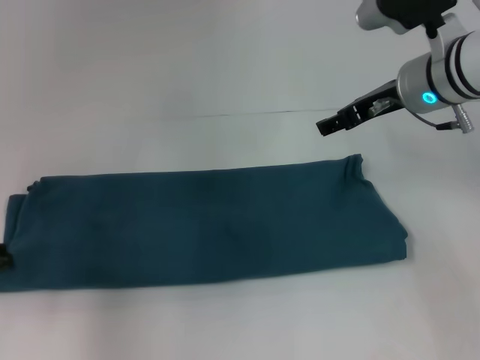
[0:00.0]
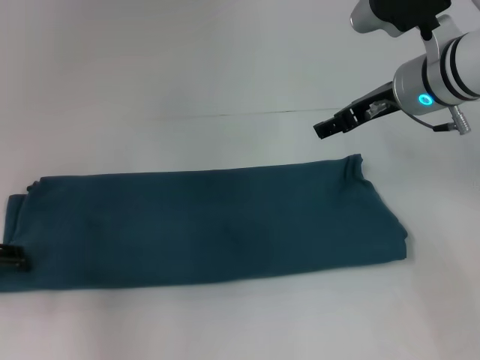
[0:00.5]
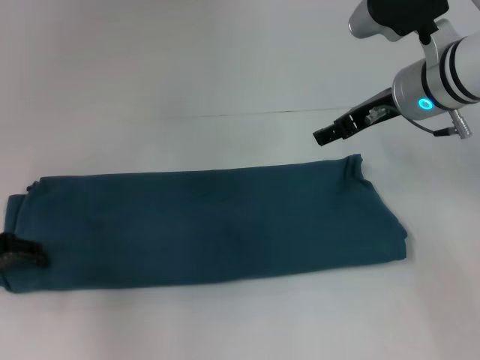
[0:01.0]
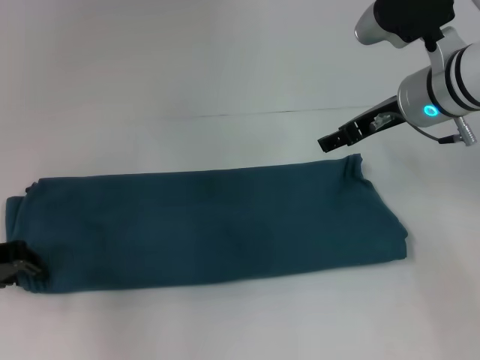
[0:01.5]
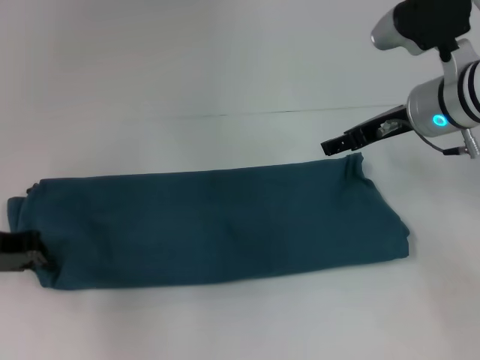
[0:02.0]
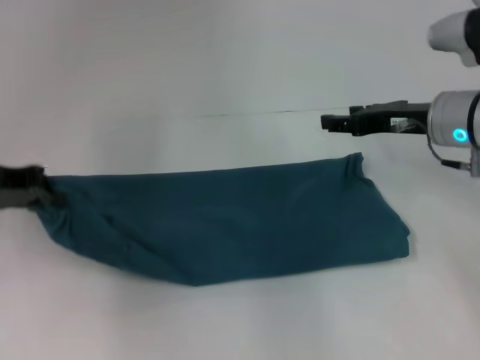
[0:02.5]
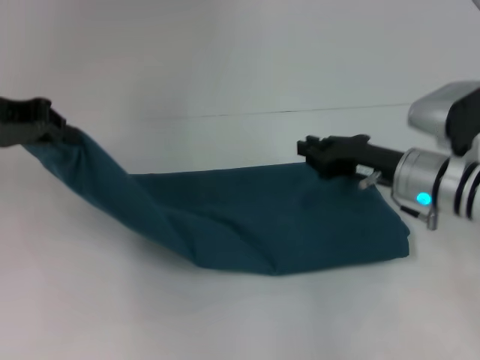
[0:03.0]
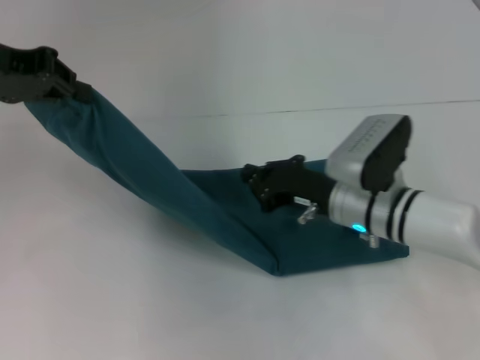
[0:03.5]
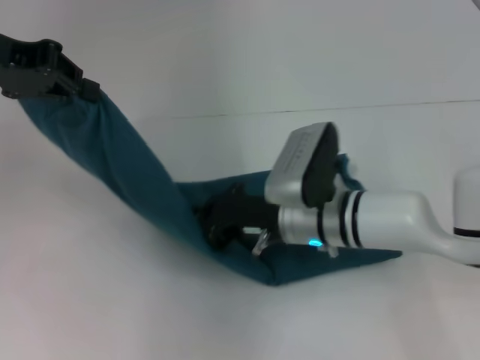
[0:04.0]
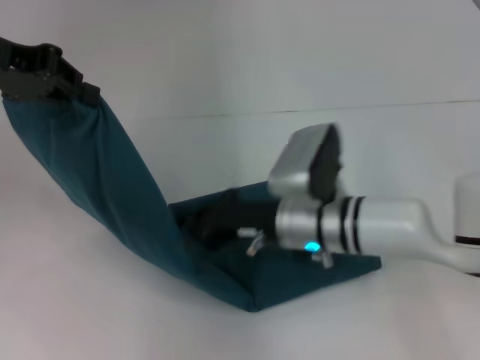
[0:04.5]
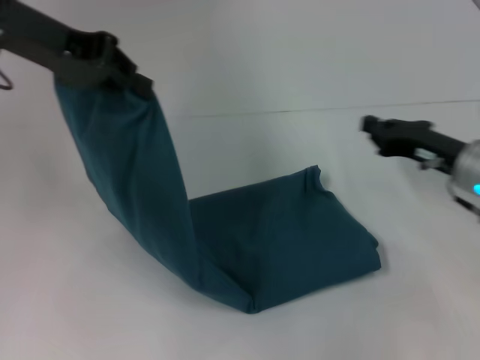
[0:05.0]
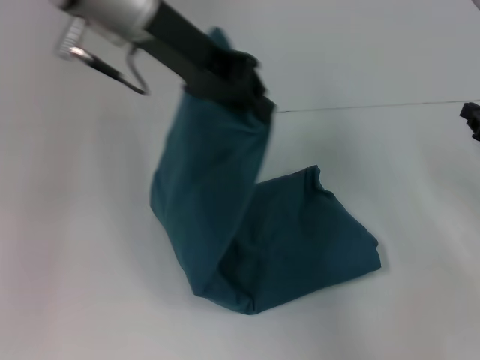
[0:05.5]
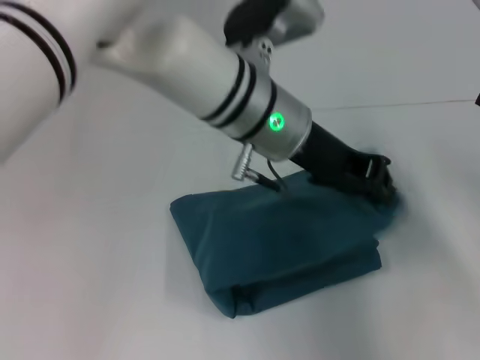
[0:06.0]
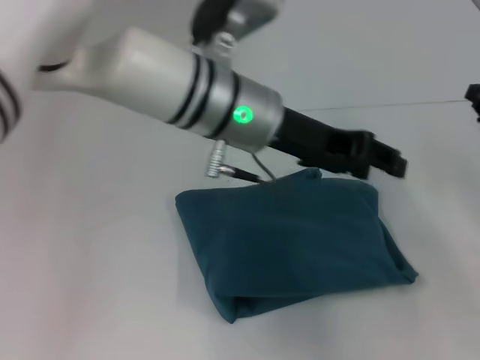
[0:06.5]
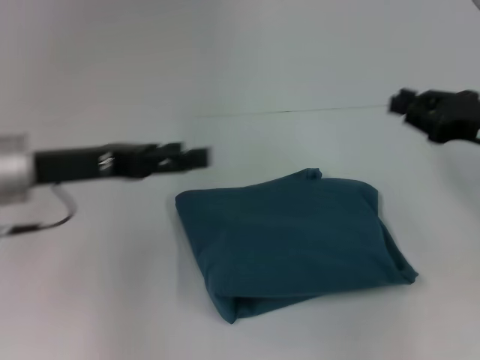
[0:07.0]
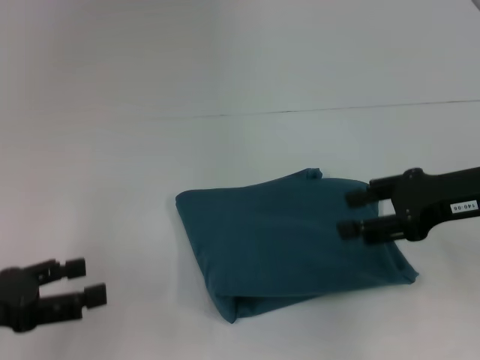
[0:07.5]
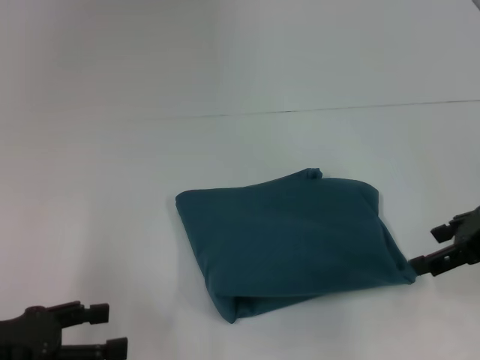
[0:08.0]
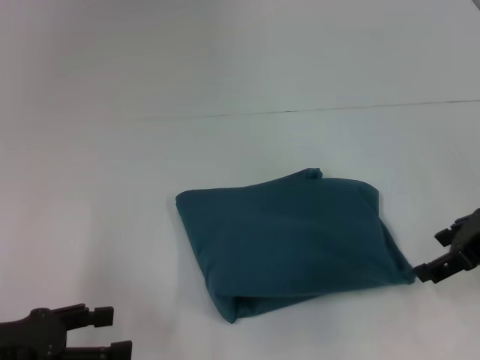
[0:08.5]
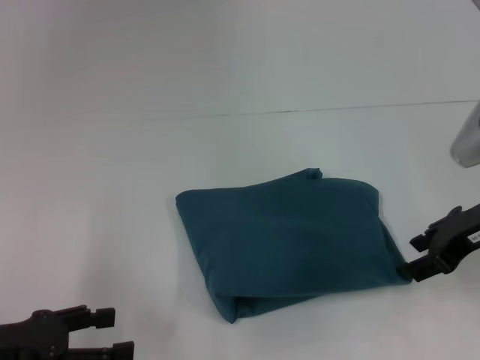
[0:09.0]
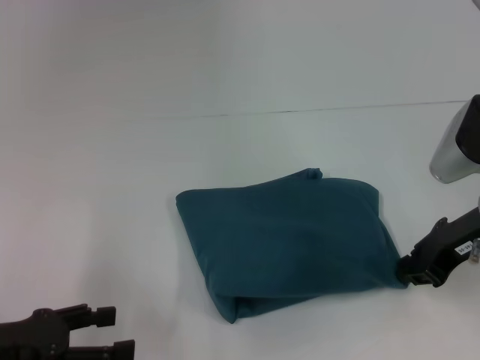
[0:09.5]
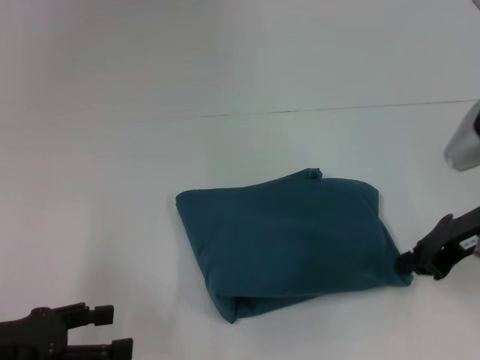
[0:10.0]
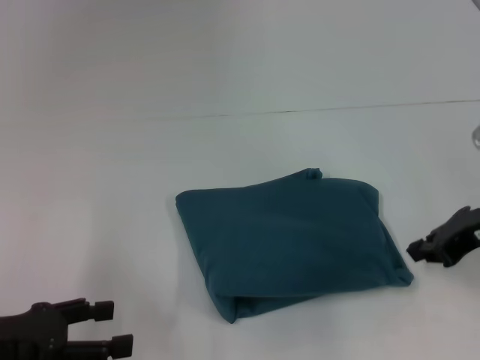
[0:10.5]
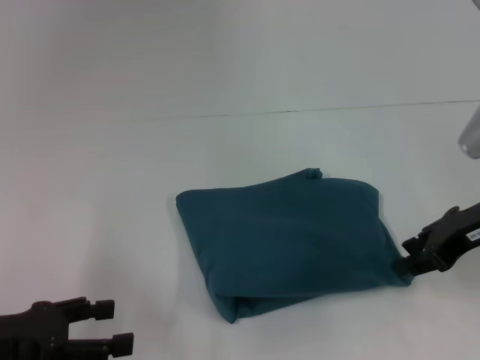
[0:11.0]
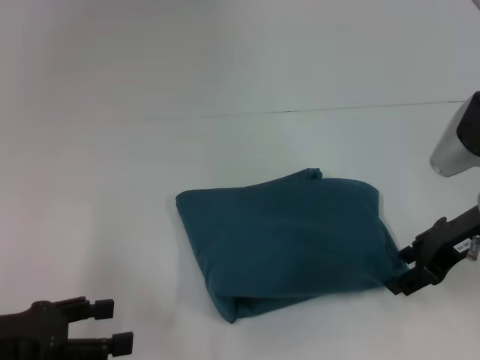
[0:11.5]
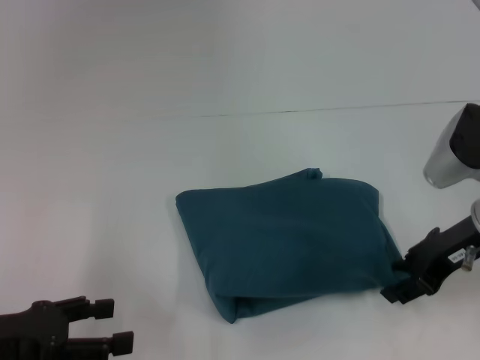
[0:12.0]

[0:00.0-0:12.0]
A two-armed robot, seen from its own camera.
Step, 0:00.0 to 0:04.5: Press the middle of the clothes with your right hand.
Step, 0:05.0 to 0:06.0: Fold the clothes to the left.
0:00.0 to 0:02.0: The left gripper shifts by some 5 cm, and closes up.
0:02.0 to 0:04.0: The left gripper moves upward, some 15 cm. The right gripper is displaced to the left, downward and backward by approximately 15 cm, and closes.
0:04.0 to 0:06.0: The grippers both shift to the right by about 25 cm.
0:06.0 to 0:08.0: The right gripper shifts roughly 10 cm upward and to the left, and opens; the left gripper is displaced to the left and backward by approximately 35 cm, and opens.
0:08.0 to 0:10.0: The right gripper closes its fingers.
0:10.0 to 0:12.0: The right gripper opens up.

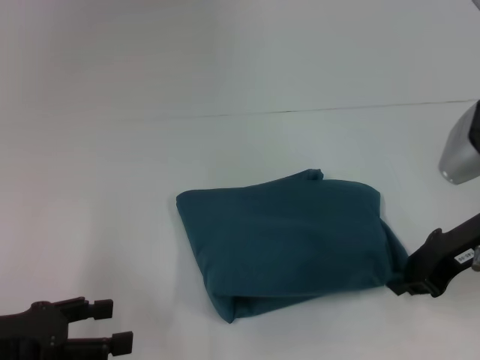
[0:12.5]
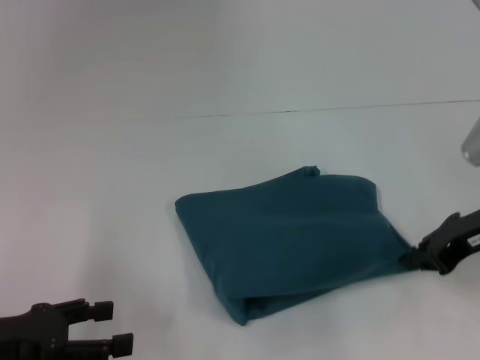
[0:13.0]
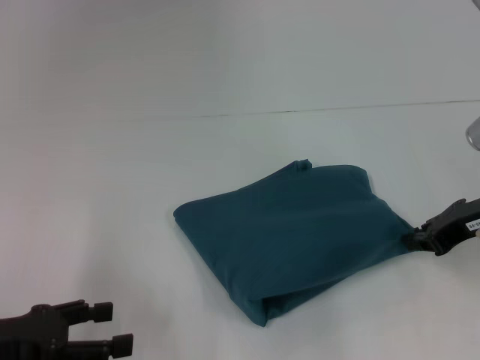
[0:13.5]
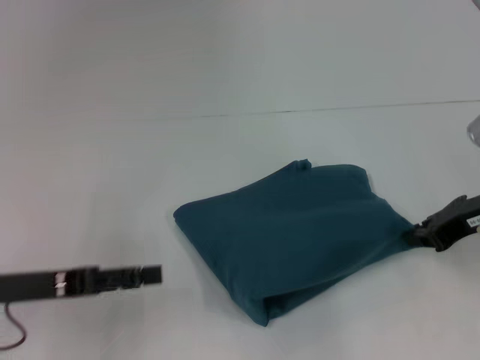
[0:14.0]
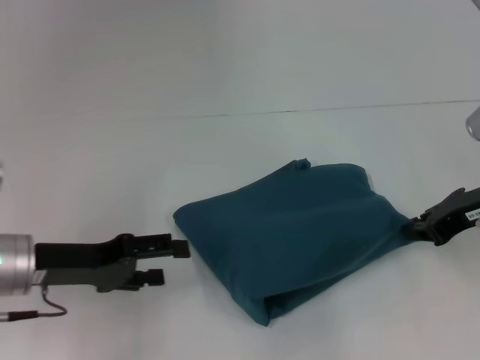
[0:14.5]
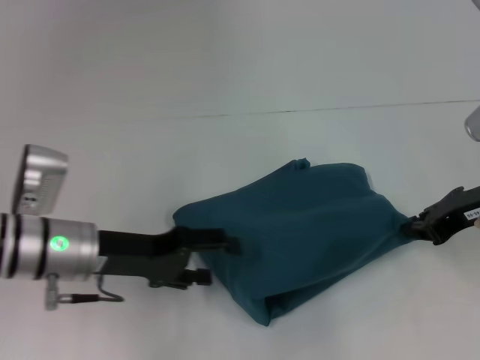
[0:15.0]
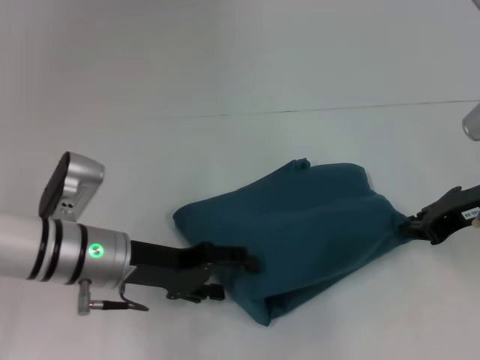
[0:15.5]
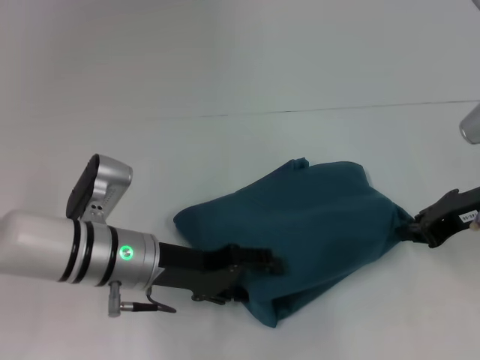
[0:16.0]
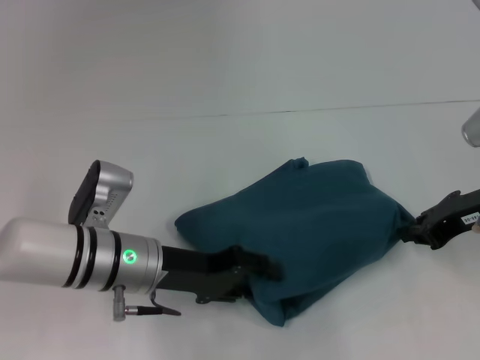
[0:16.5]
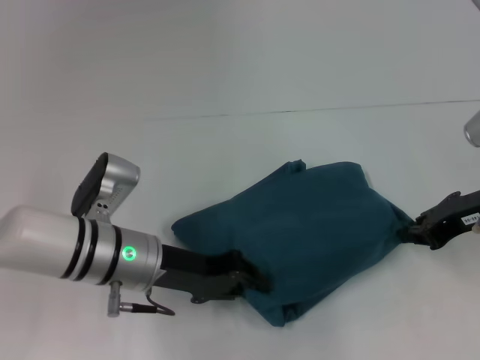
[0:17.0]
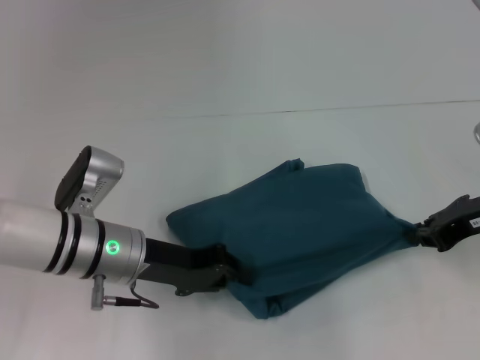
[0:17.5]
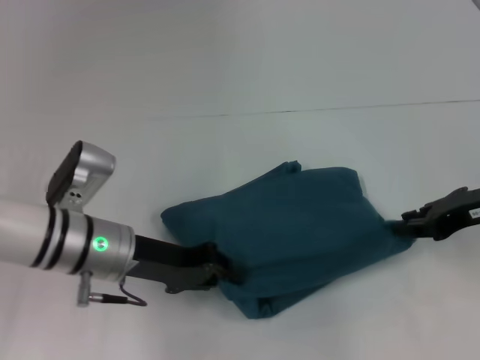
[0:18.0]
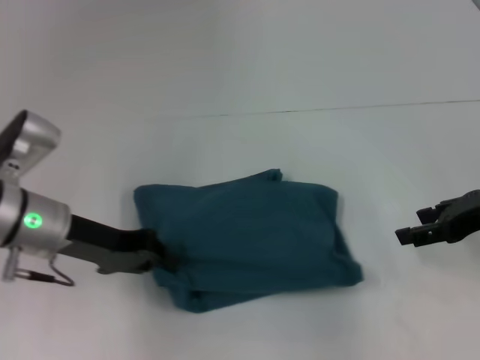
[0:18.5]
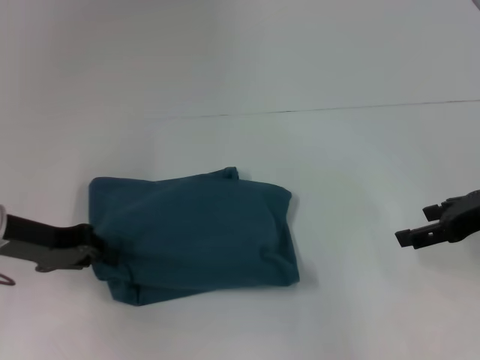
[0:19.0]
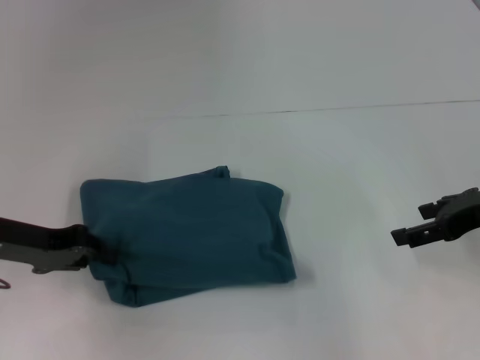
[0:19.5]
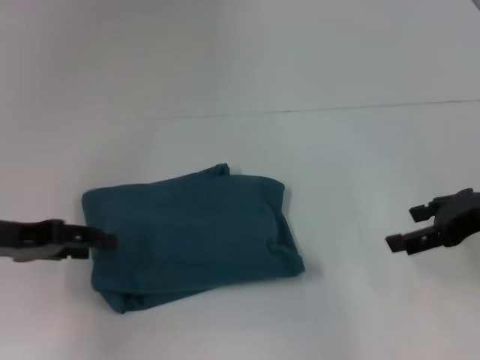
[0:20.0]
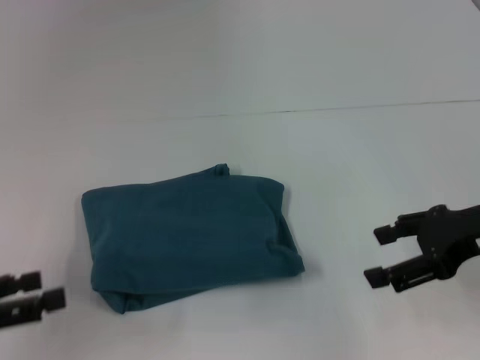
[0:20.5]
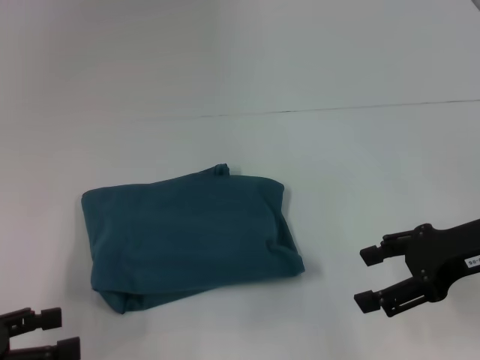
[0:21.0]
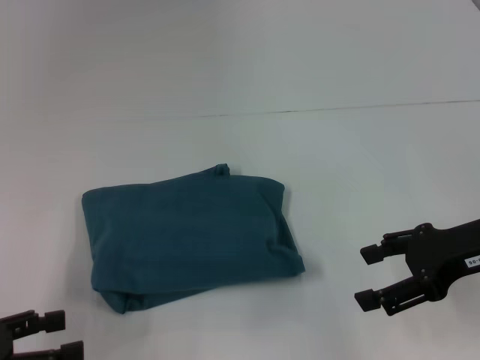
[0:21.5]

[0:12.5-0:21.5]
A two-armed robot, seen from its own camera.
0:12.5 to 0:14.5: The left gripper is displaced forward and to the right by some 10 cm.
0:14.5 to 0:17.0: The left gripper travels to the right by roughly 10 cm, and closes.
0:17.0 to 0:19.5: The right gripper opens its fingers; the left gripper is displaced to the left by roughly 15 cm.
0:19.5 to 0:21.5: The right gripper shifts by some 5 cm; the left gripper heads backward, covering some 15 cm, and opens.
